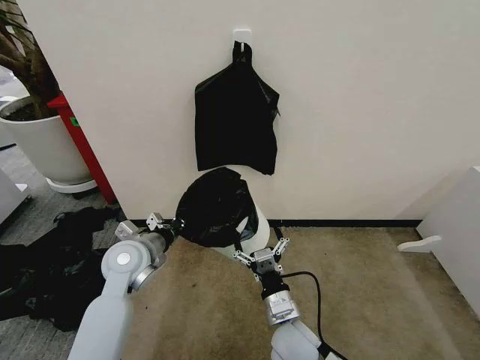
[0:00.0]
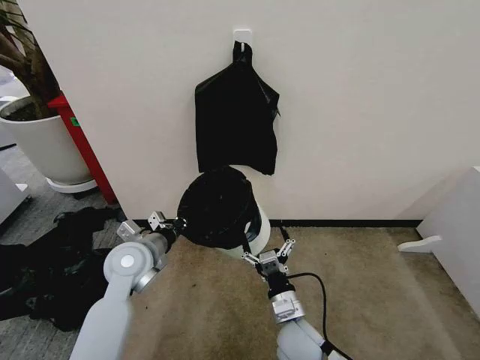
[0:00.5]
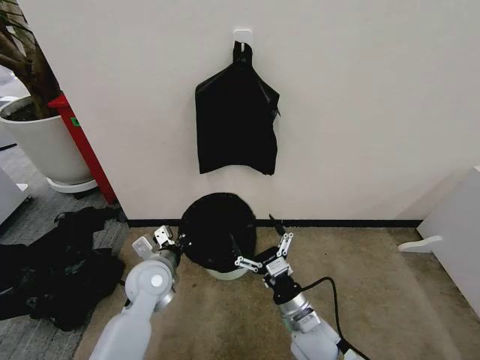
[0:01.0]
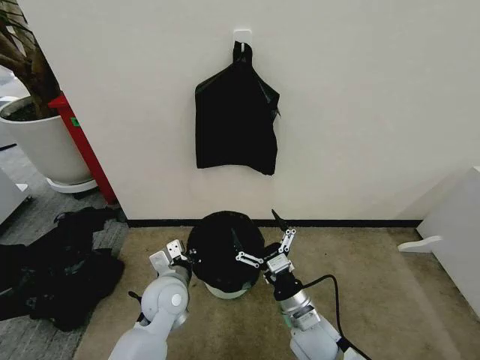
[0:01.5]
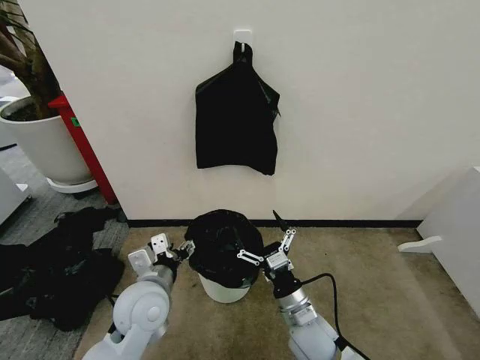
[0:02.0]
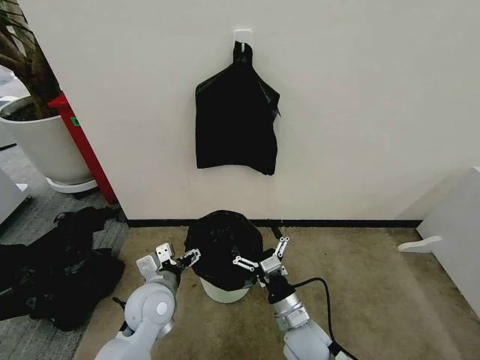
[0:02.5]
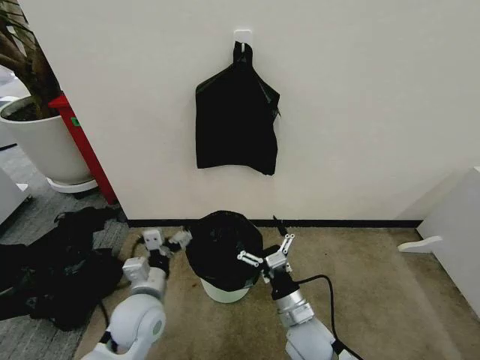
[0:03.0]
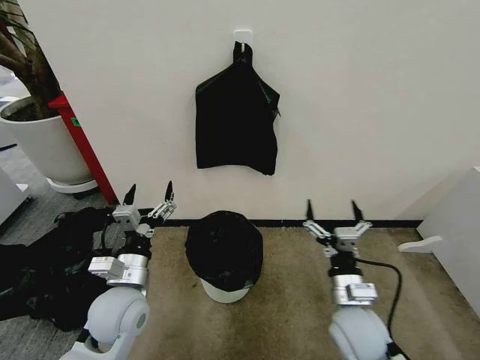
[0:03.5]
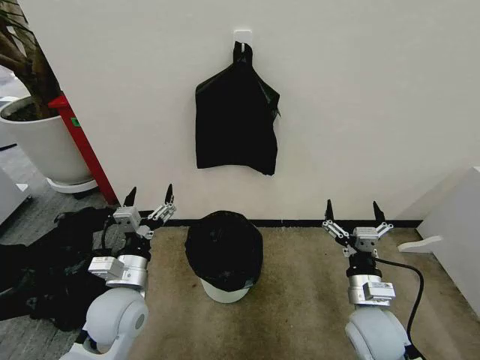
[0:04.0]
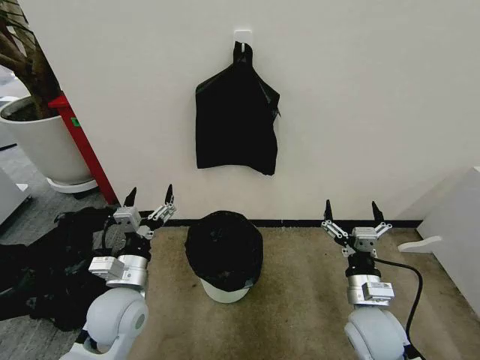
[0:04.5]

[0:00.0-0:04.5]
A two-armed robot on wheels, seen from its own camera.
Task of the whole recording: Place the garbage bag over the trash bin.
0.0 to 2.0 s: The left gripper travels backward and to the right by about 10 cm, reaches some 5 cm downward, then returns, and opens its fingers.
2.0 to 4.5 s: The right gripper heads to the right and upward, covering roughly 10 cm. Meanwhile the left gripper opens its fingers.

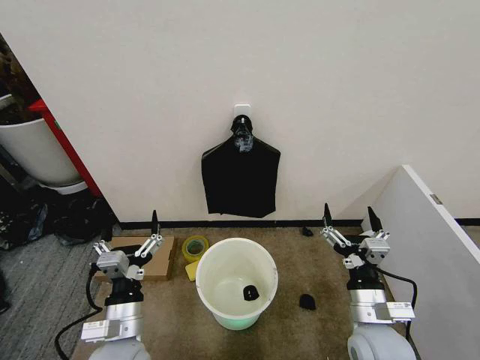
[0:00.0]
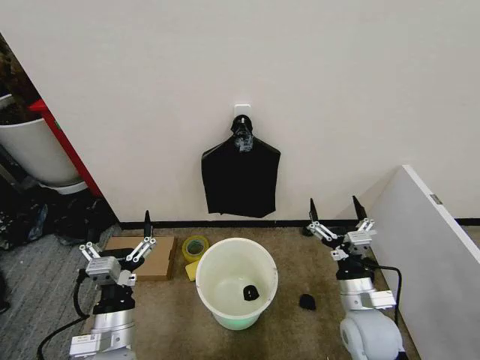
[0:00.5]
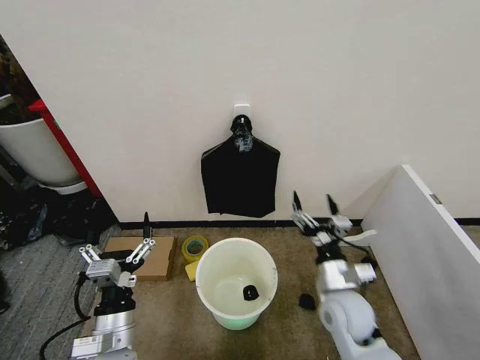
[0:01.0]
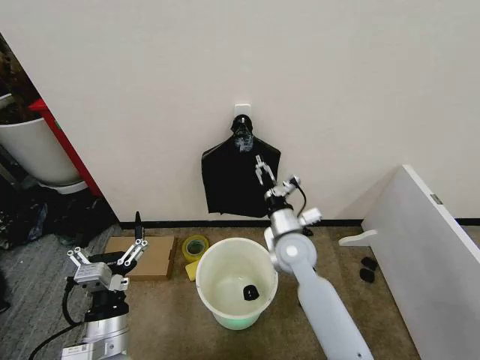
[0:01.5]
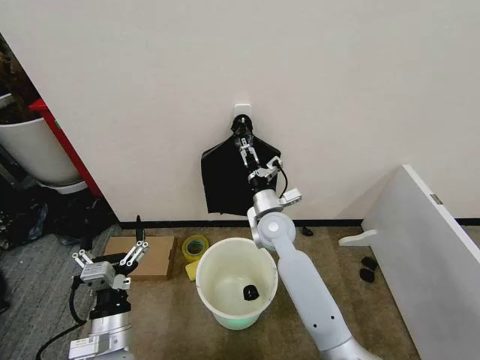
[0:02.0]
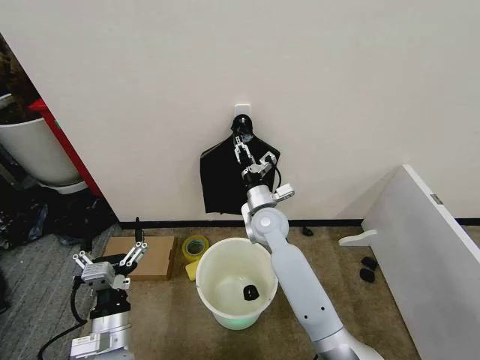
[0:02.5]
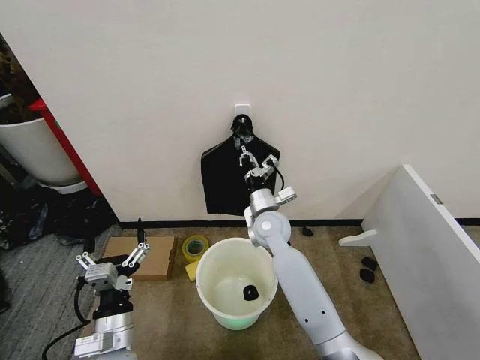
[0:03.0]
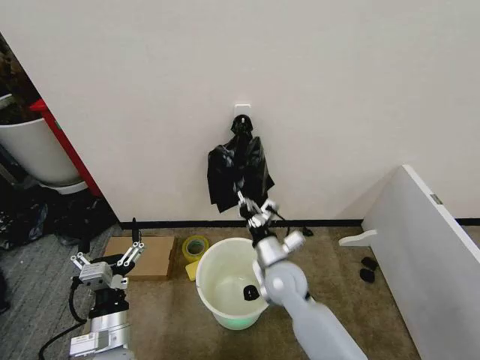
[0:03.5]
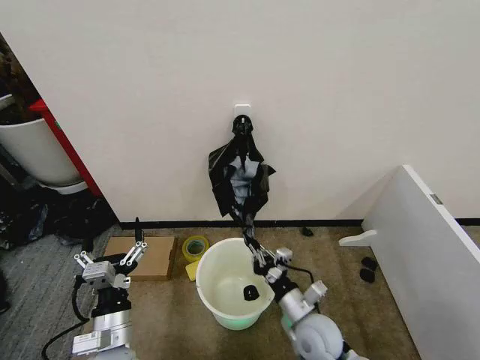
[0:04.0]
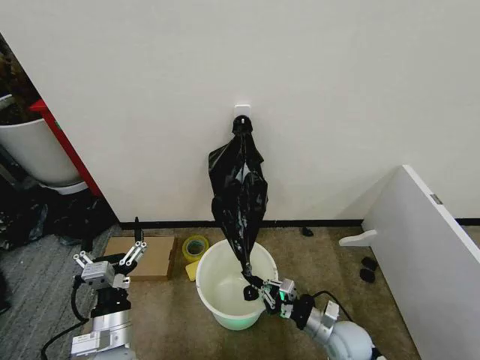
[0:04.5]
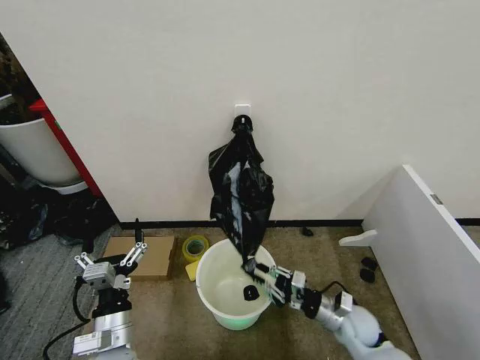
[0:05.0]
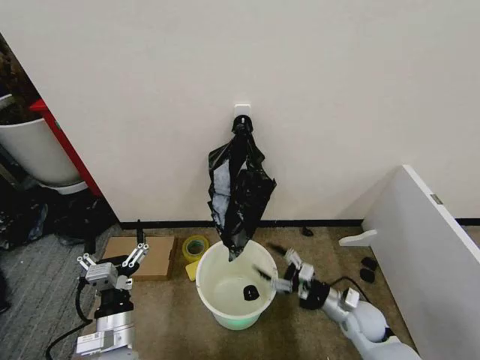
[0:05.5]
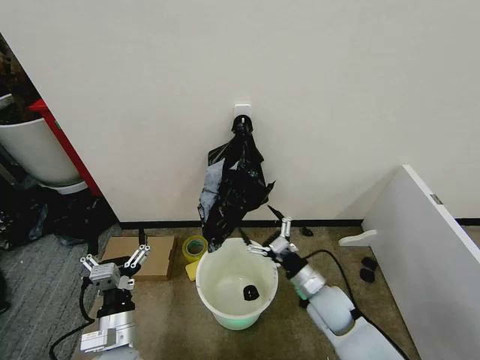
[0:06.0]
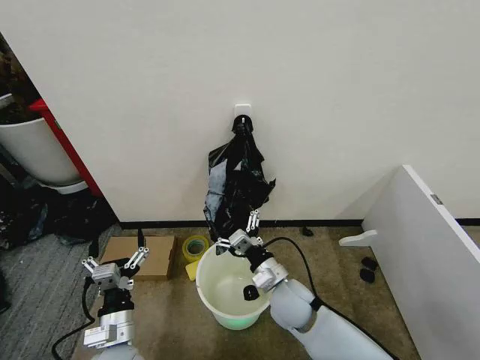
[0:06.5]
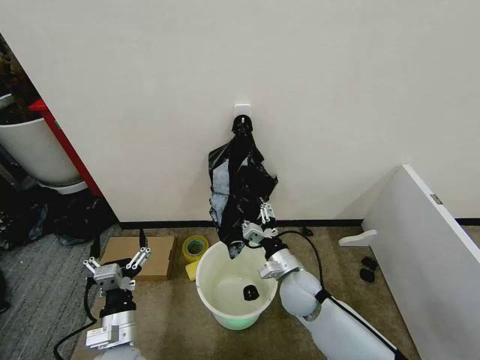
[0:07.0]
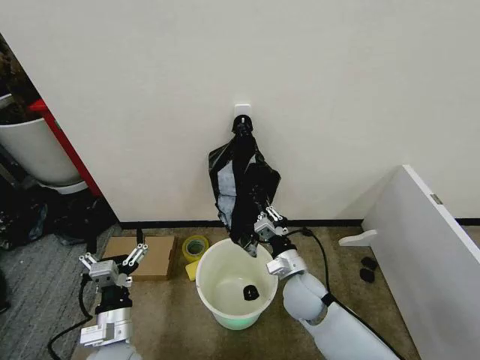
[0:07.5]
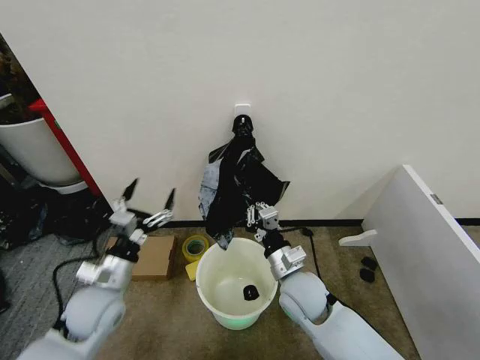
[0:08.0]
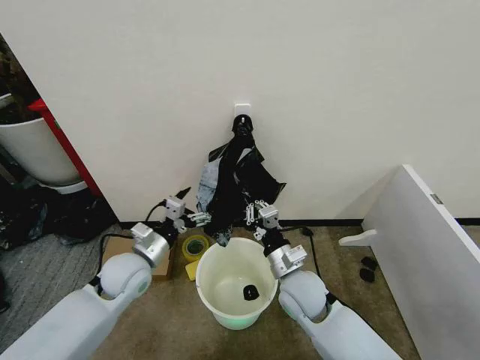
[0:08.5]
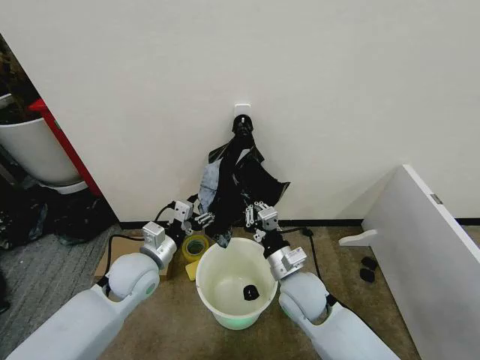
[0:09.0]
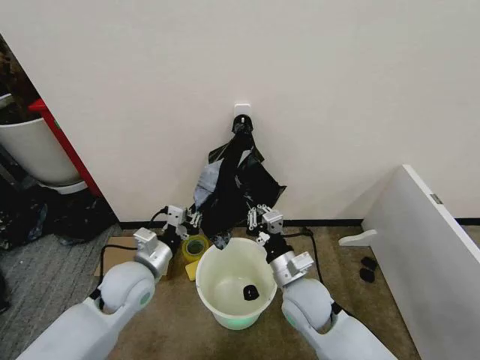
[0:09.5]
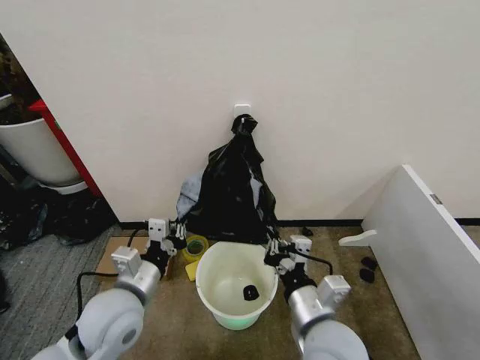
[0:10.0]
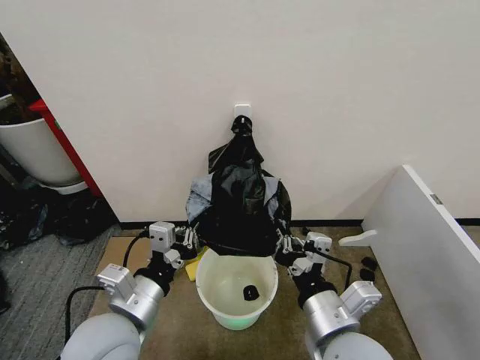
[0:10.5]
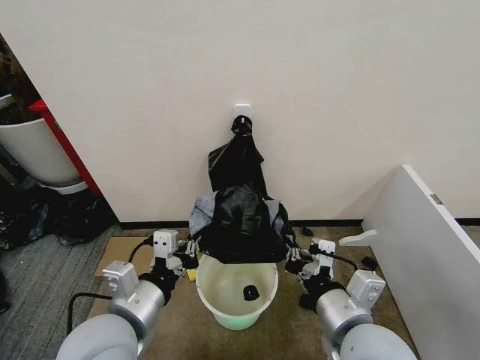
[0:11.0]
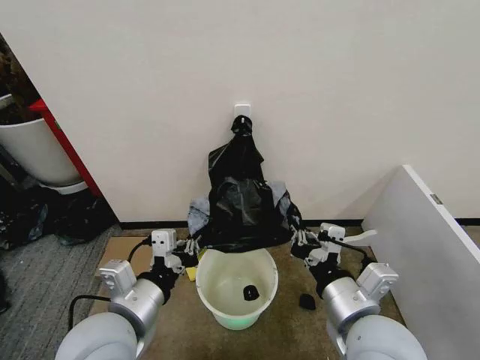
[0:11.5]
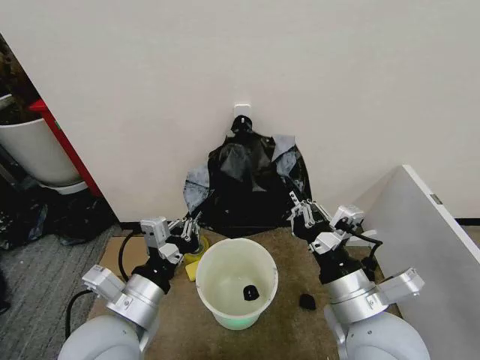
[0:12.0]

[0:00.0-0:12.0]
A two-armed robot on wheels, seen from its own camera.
Task of the whole recording: Place the garbage bag over the trash bin.
2.0 to 4.0 s: The right gripper moves backward and downward, approximately 25 cm, and closes.
4.0 to 6.0 s: The right gripper is displaced forward by roughly 5 cm, reaches approximately 15 cm to the right, then returns, and opens.
6.0 to 8.0 s: The left gripper is displaced forward, to the left and upward by roughly 15 cm. The right gripper is displaced to the left and upward by about 10 cm, and closes its fingers.
8.0 to 10.0 s: The left gripper travels to the right and upward by roughly 10 cm, and closes; the right gripper moves backward and upward, roughly 15 cm.
10.0 to 12.0 s: The left gripper heads backward and upward, covering some 10 cm; the right gripper is displaced upward by roughly 5 cm.

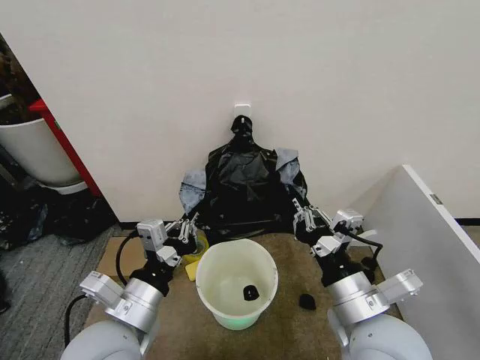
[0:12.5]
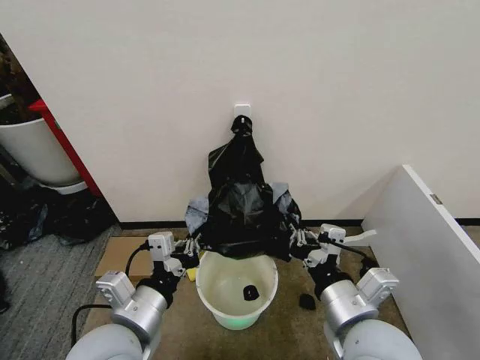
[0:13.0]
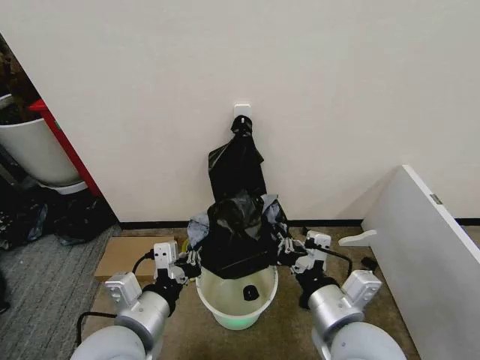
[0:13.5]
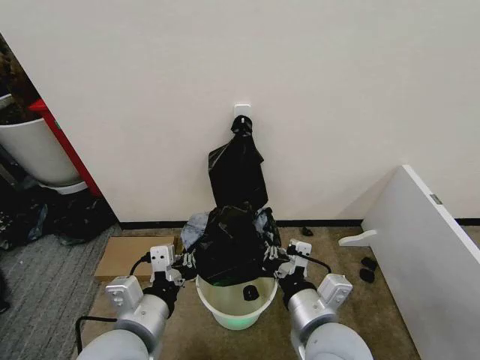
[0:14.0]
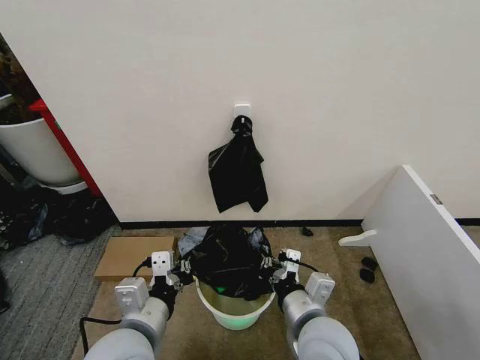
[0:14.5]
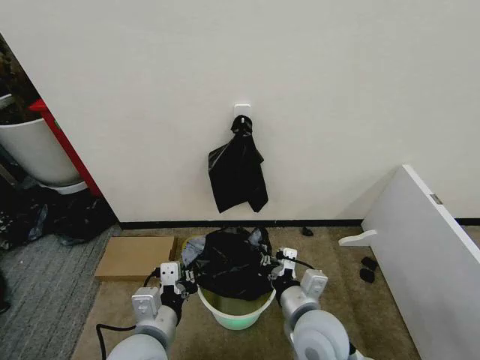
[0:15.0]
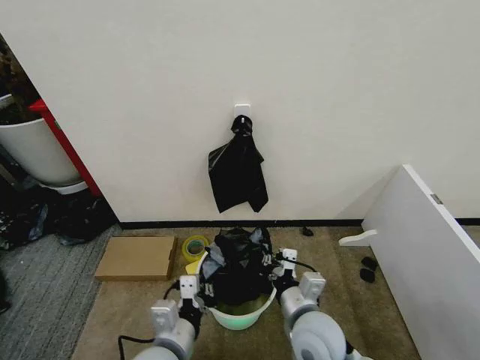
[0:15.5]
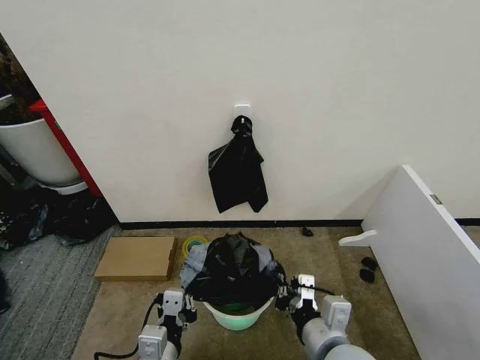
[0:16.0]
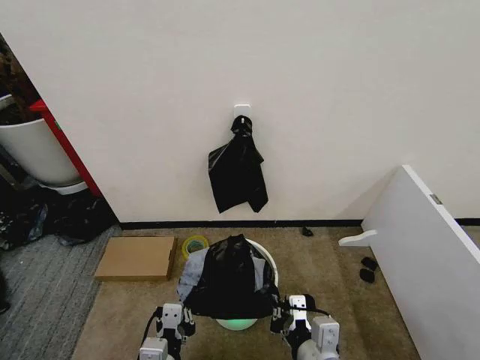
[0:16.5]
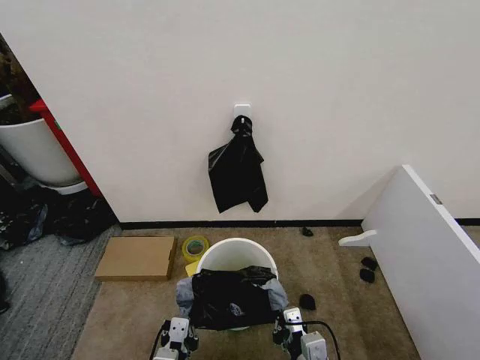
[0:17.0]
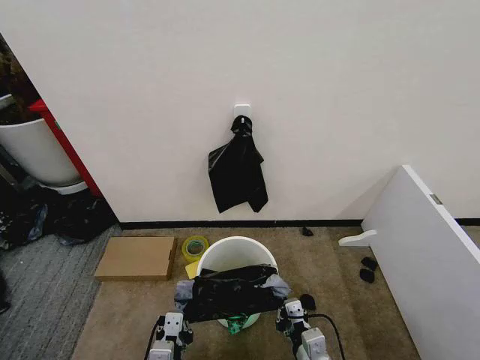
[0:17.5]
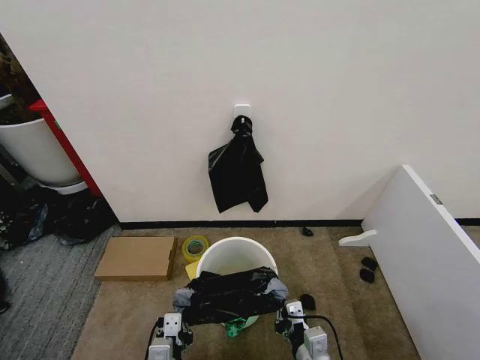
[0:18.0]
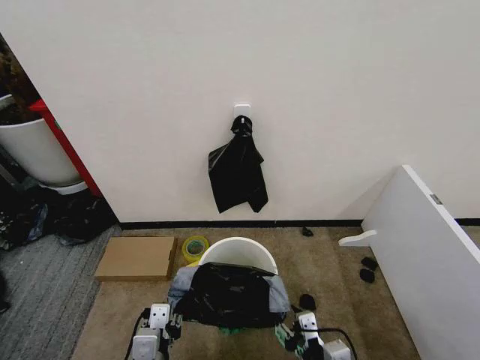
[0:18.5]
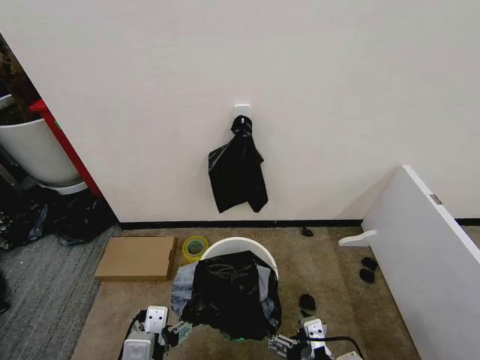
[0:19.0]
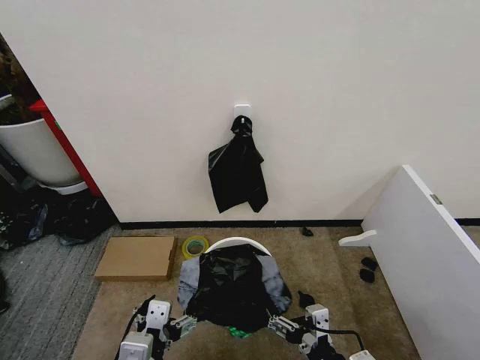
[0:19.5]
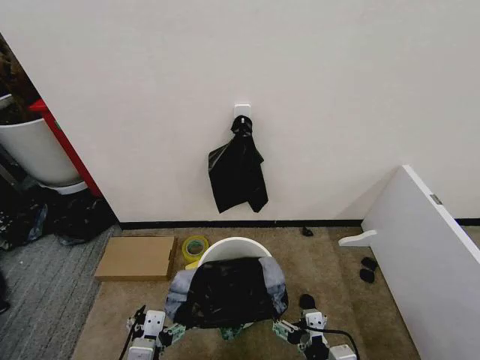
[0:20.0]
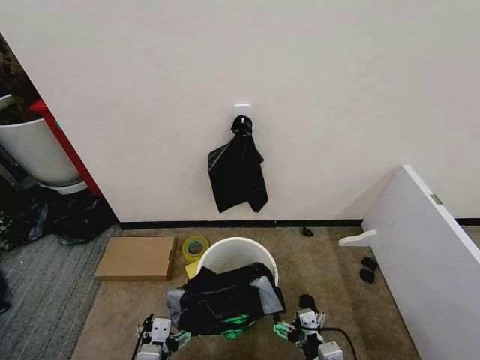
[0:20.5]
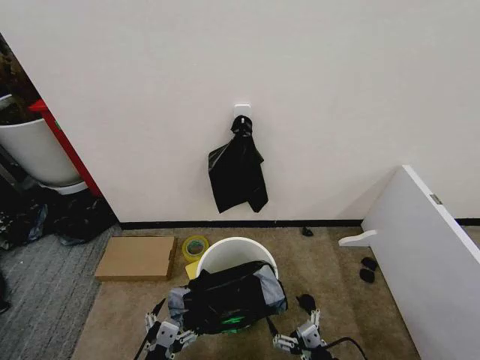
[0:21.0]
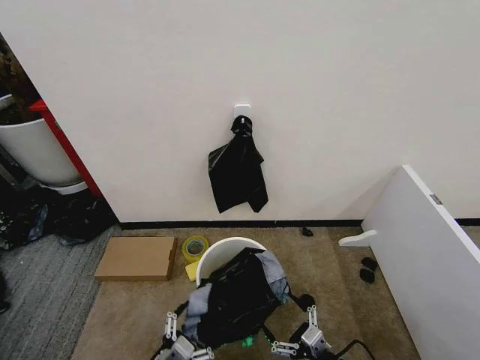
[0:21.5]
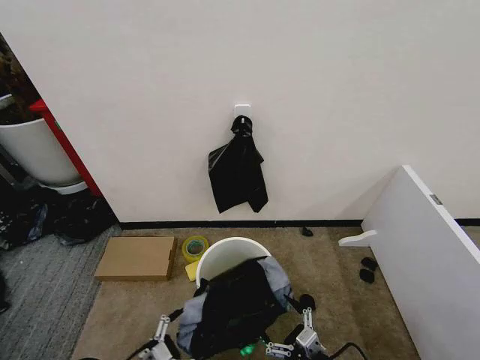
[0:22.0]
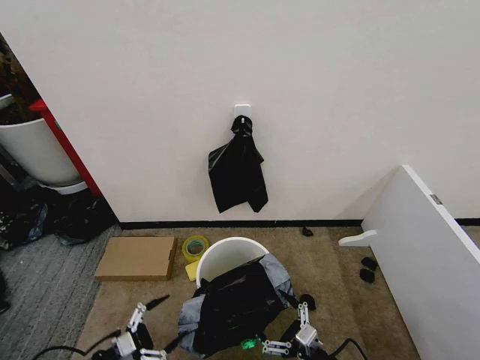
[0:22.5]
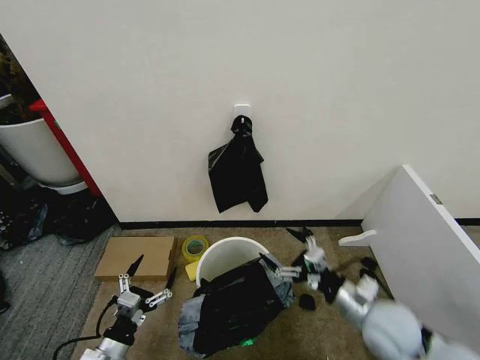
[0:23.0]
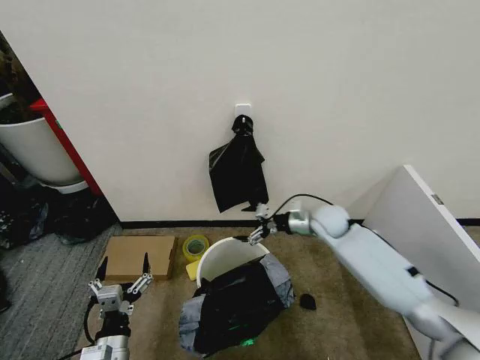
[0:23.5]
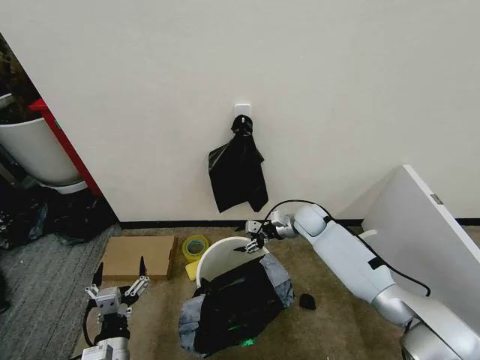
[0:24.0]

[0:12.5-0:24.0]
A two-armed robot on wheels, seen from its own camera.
Task of the whole recording: Place the garbage bag over the trash bin.
12.5 to 14.5 s: The right gripper travels downward and to the left by roughly 10 cm.
14.5 to 16.5 s: The left gripper is displaced downward and backward by about 10 cm; the right gripper goes roughly 5 cm backward.
16.5 to 18.5 s: The left gripper opens. Meanwhile the right gripper moves downward, some 5 cm, and opens.
18.5 to 20.0 s: The right gripper opens; the left gripper goes upward and returns, roughly 5 cm each way, and opens its fingers.
20.0 to 22.0 s: The left gripper is displaced to the left and downward by roughly 20 cm. The right gripper heads to the right and downward, covering about 5 cm.
22.0 to 24.0 s: The left gripper moves to the right and upward, roughly 10 cm. The right gripper moves forward, about 40 cm, and closes its fingers.
